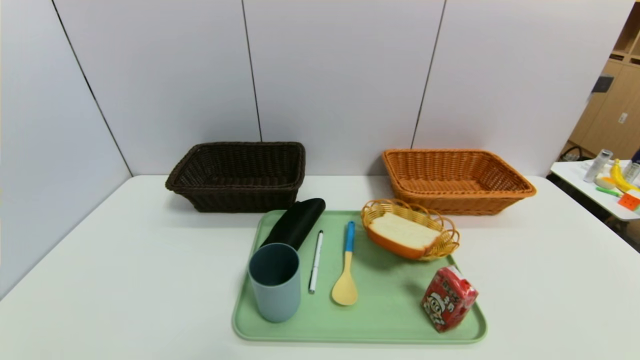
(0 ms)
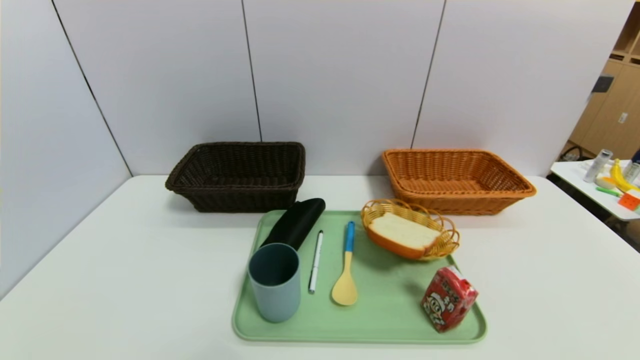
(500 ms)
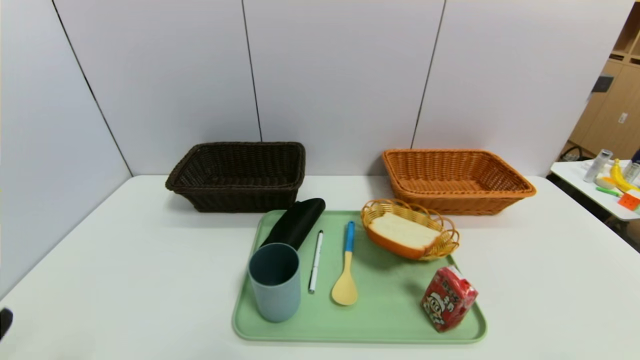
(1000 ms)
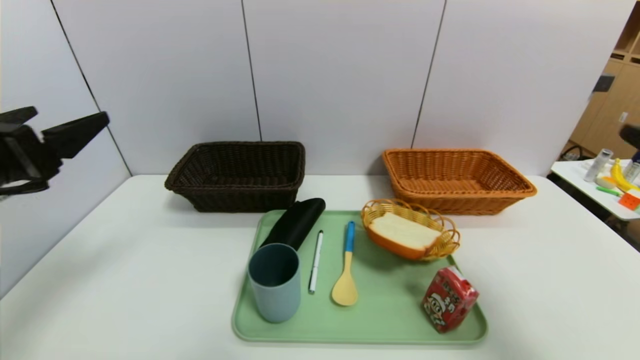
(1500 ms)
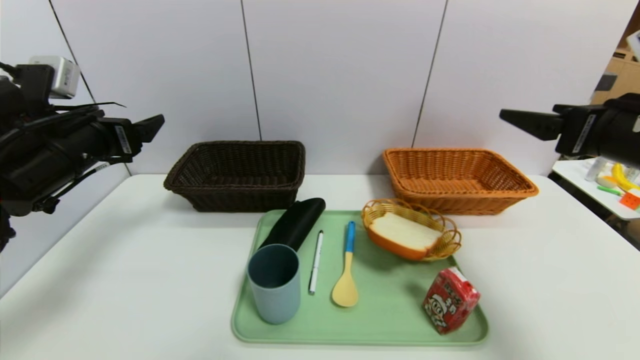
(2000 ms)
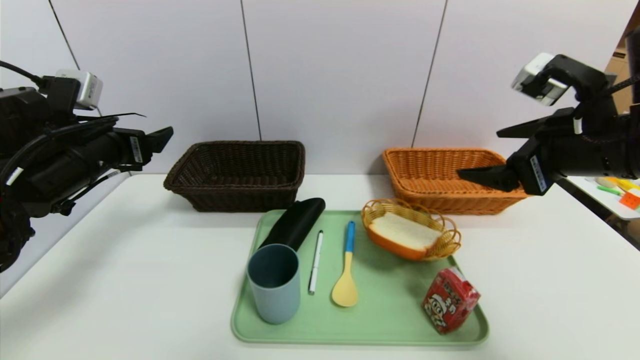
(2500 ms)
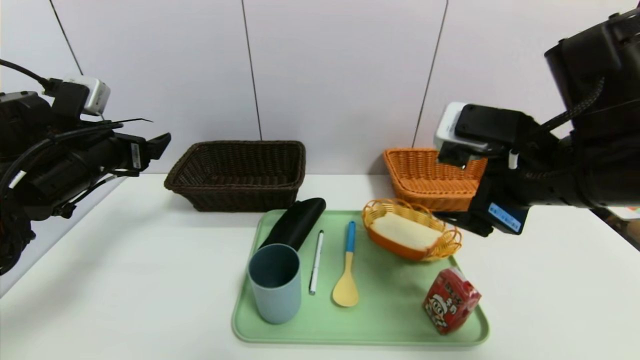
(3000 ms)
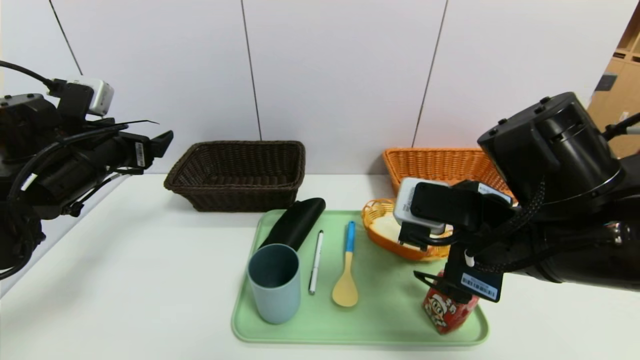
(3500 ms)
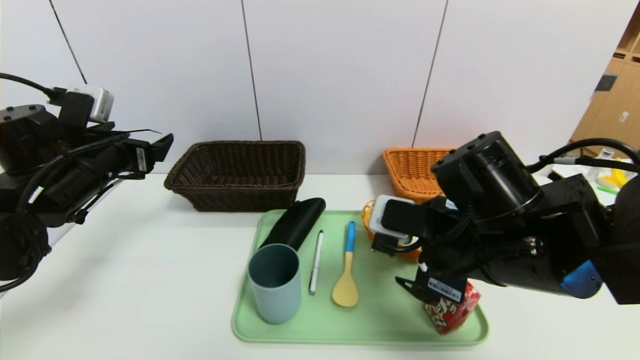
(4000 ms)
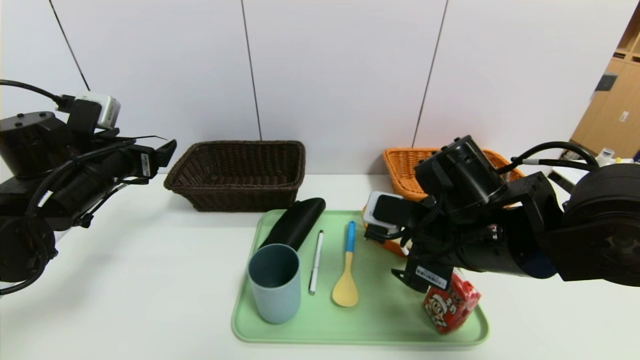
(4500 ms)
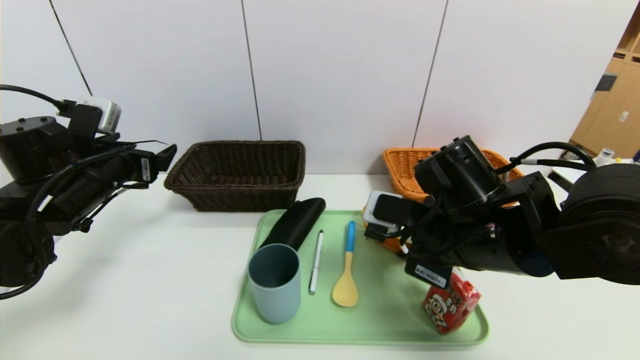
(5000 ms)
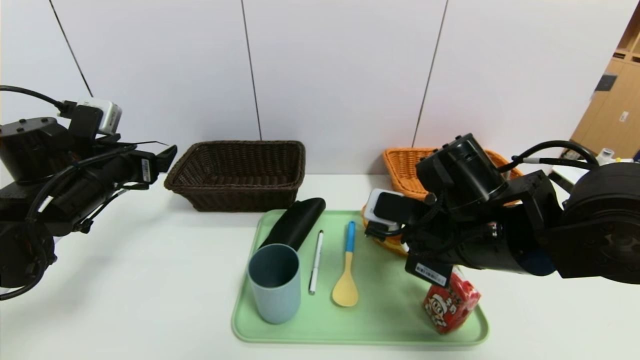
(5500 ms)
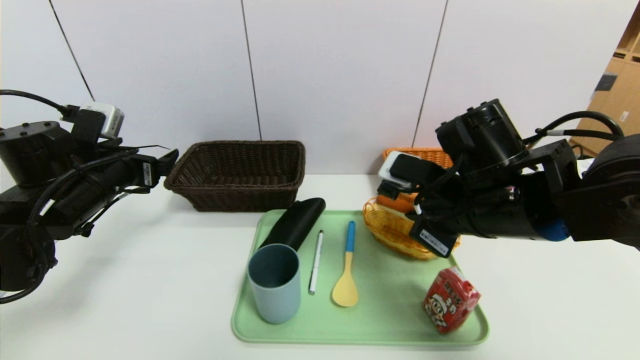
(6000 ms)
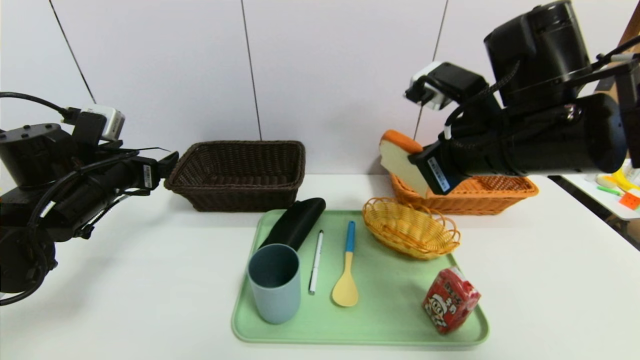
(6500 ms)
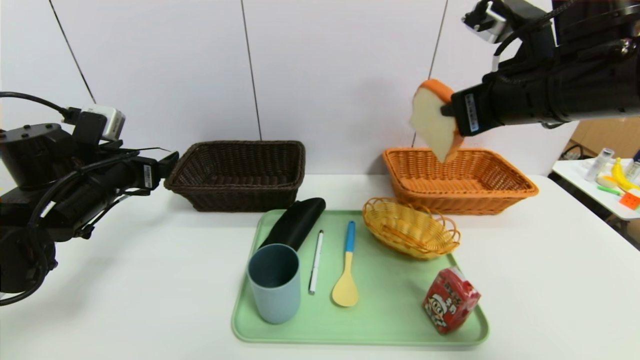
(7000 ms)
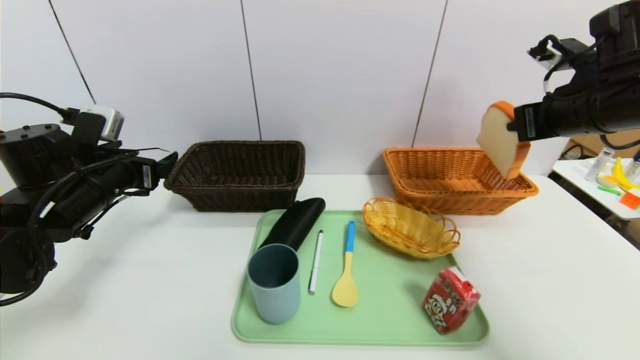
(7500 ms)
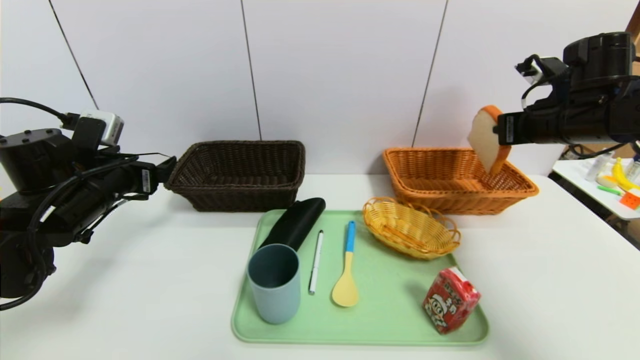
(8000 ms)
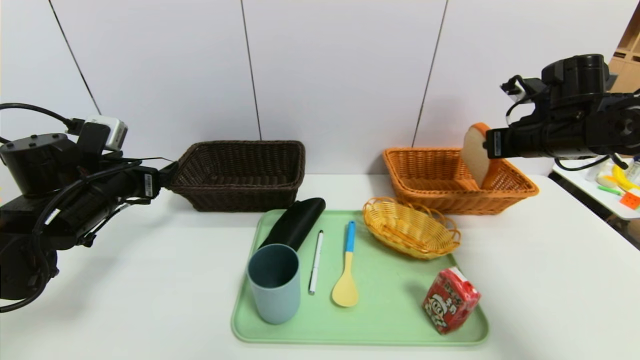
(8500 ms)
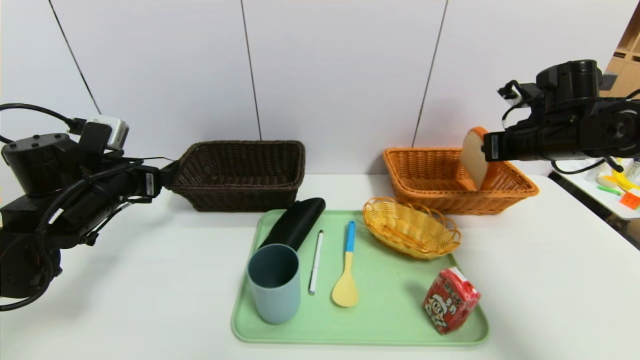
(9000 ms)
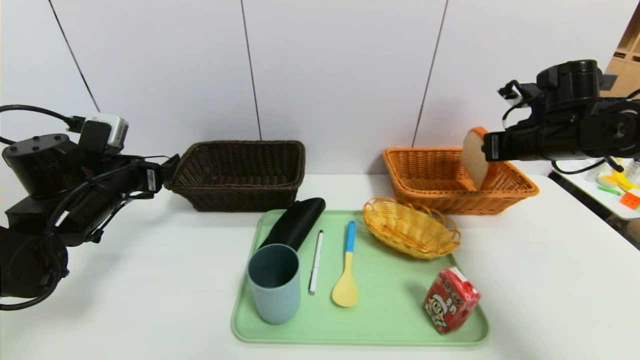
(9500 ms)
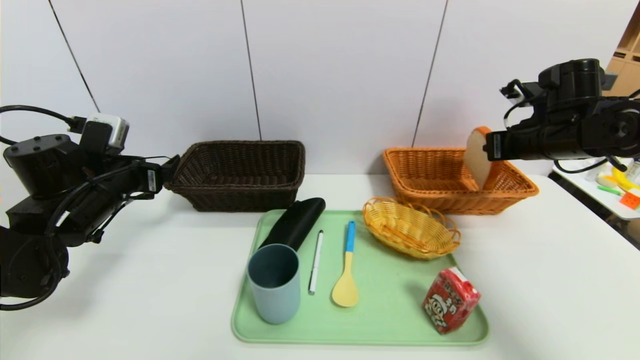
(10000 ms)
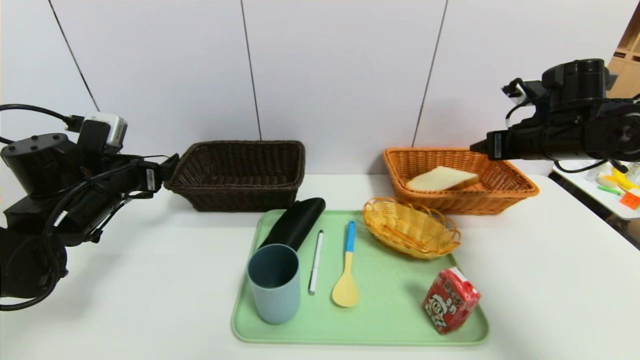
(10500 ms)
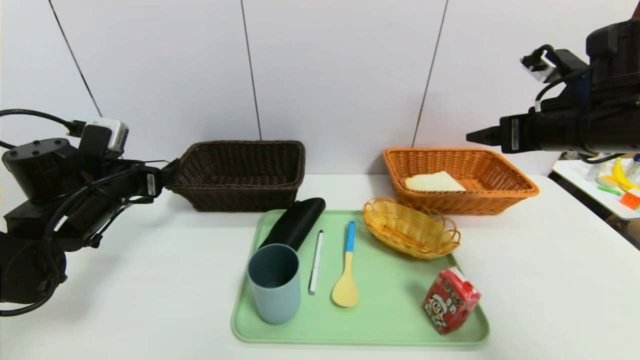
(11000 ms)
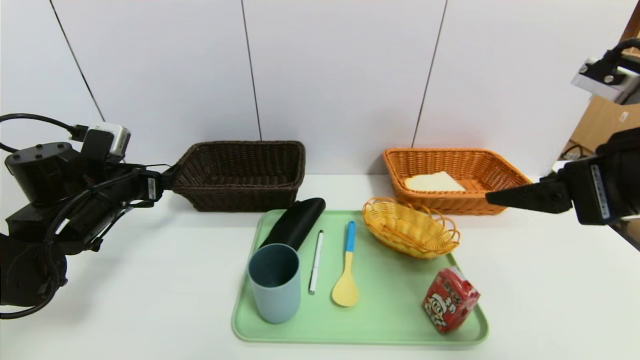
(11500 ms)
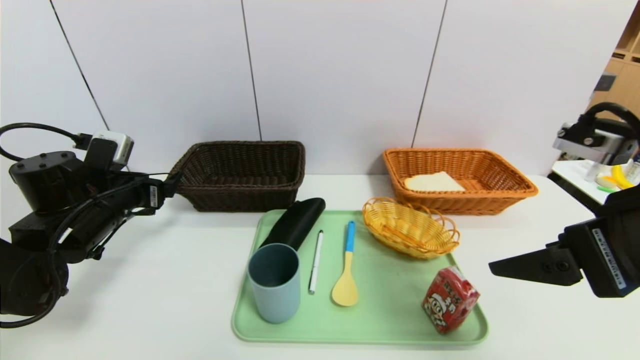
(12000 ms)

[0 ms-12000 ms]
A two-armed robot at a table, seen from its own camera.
Task of the whole recording: place the food in the right basket with the right gripper, and place the non food items in the left basket with the left gripper.
Step, 0 ms to 10500 ms: Grasp the bread slice and put it in the right basket.
0 ms to 2000 ms: Both grippers move forward and upward, about 35 cm.
2000 ms to 4000 ms: The right gripper heads to the left and downward, covering approximately 20 cm.
4000 ms to 6000 ms: The right gripper closes its fingers.
6000 ms to 8000 ms: The right gripper heads to the right and forward, covering roughly 20 cm.
8000 ms to 10000 ms: The grippers make only small movements.
10000 ms to 12000 ms: The right gripper is displaced backward by about 25 cm, and opens its fingers.

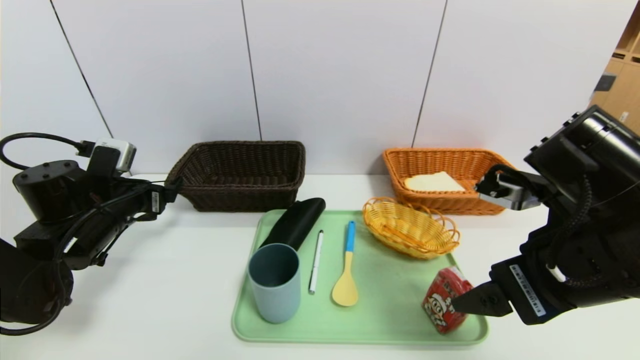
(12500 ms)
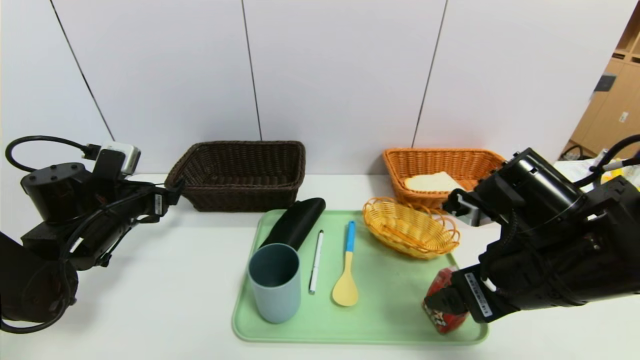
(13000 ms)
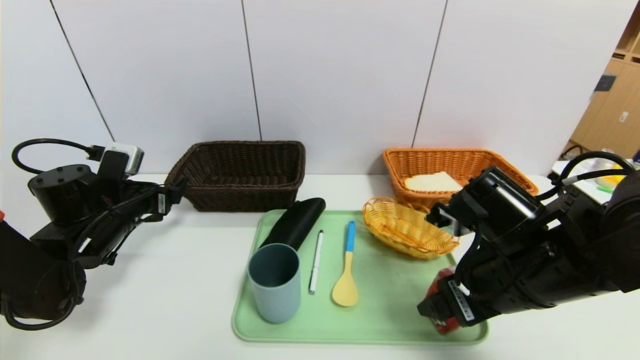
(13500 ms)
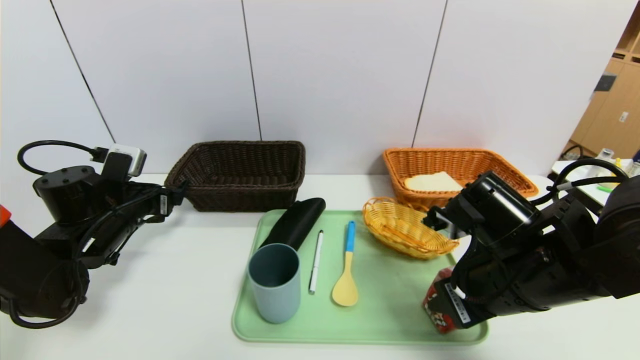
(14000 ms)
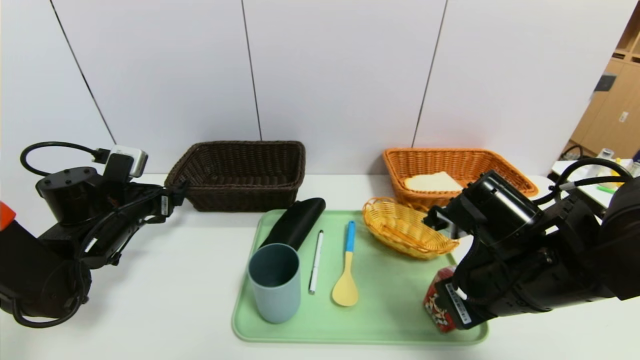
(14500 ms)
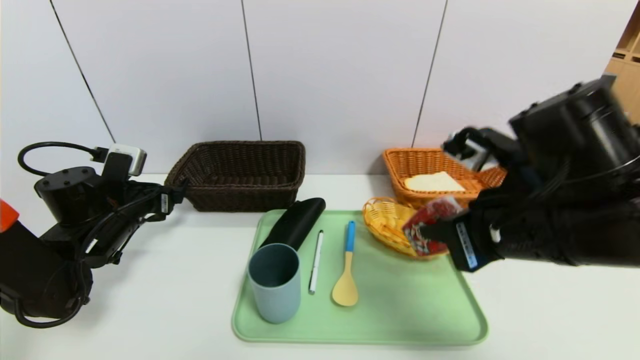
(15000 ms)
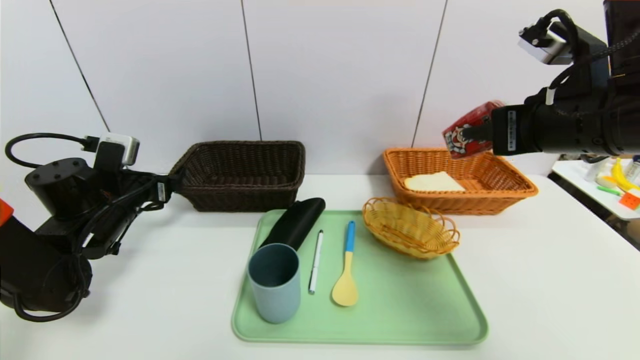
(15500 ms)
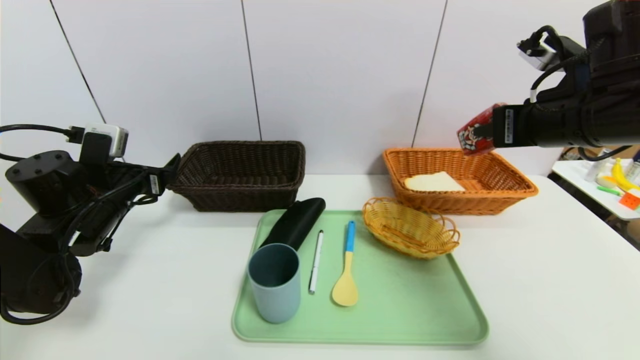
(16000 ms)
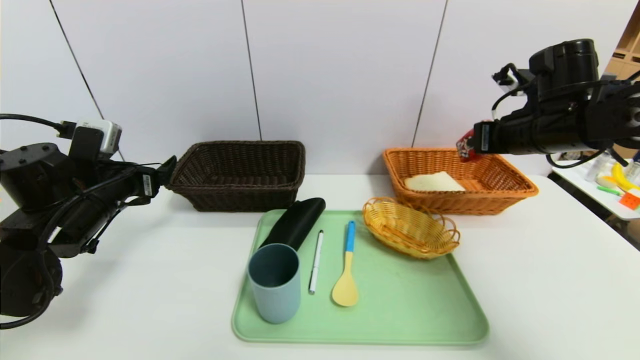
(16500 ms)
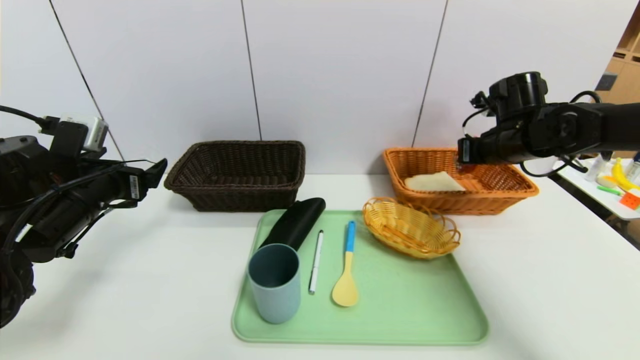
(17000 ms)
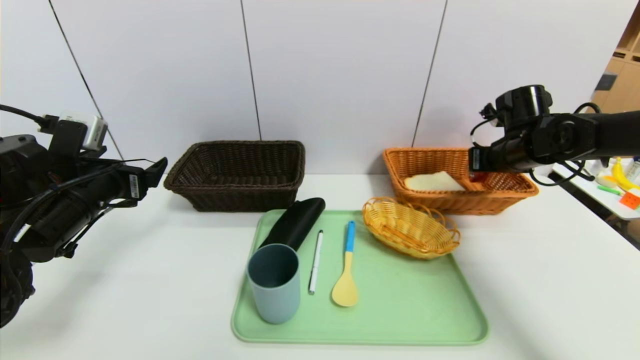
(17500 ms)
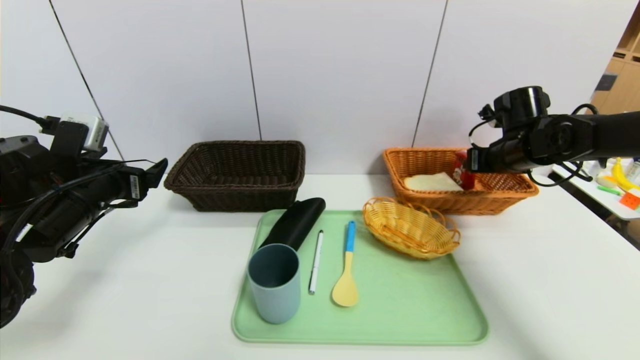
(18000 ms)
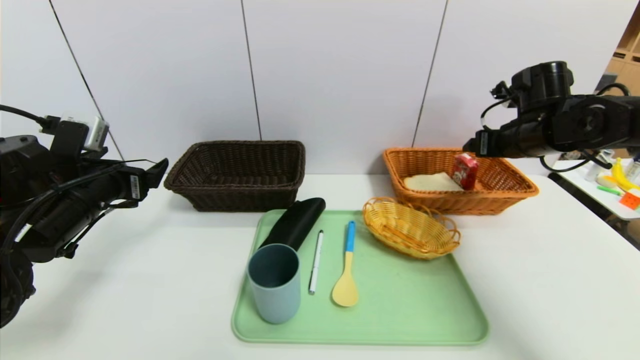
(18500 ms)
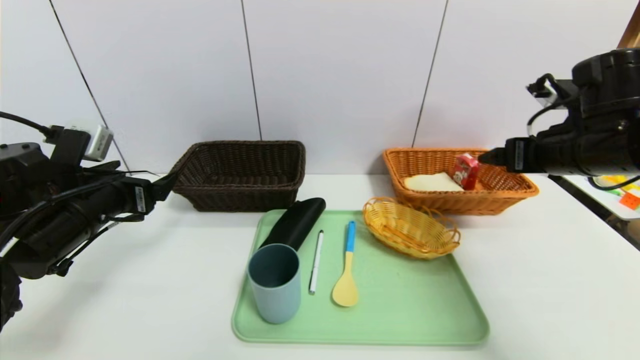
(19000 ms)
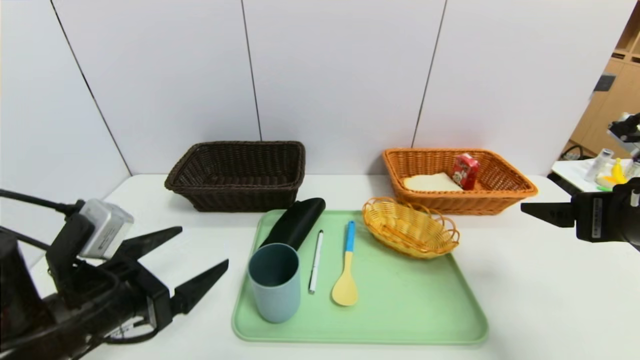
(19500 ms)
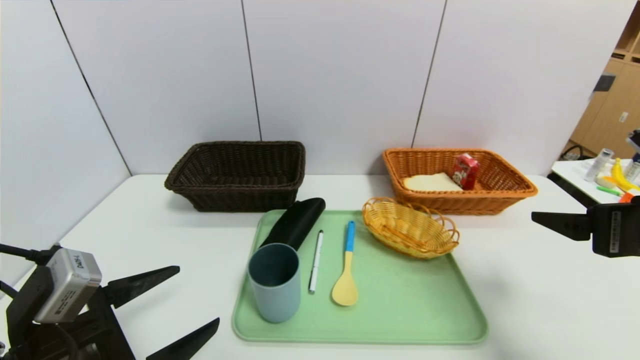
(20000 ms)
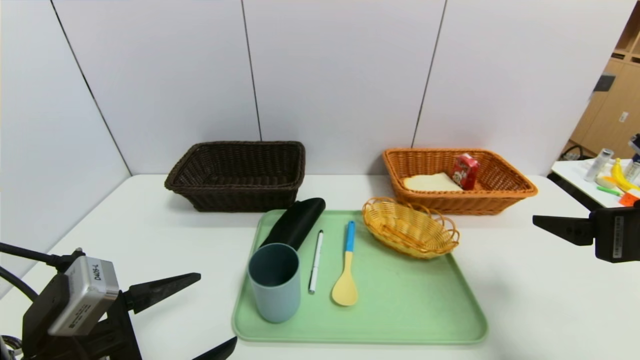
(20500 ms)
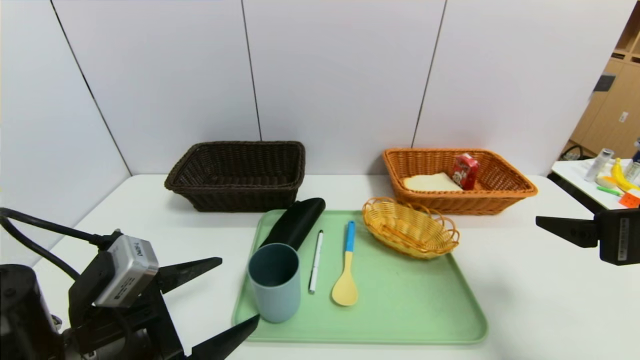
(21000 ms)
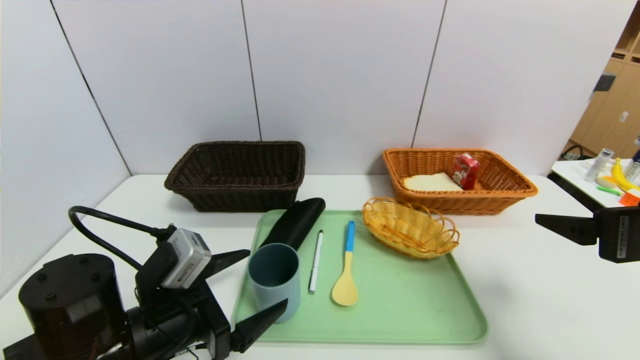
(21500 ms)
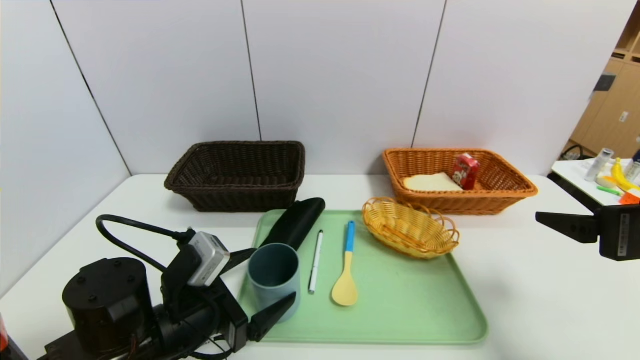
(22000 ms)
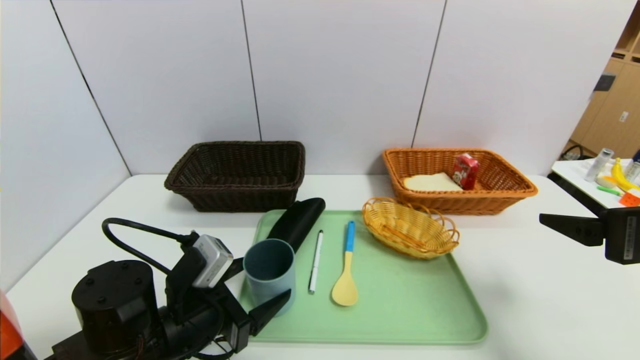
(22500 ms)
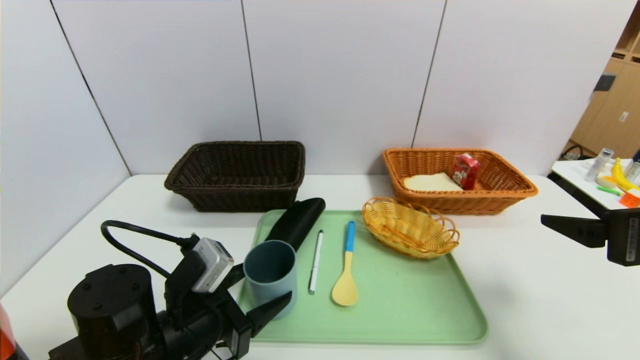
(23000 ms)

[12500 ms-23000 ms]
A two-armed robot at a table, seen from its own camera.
Task of the whole recording: place the food in the right basket with the right gripper, and place the non food items in the left basket with the left gripper.
Step, 12500 ms to 18000 ms: Grasp the ad milk and put it in the right basket.
12500 ms to 14500 ms: The right gripper travels downward by some 5 cm, and closes up.
14500 ms to 16500 ms: The left gripper shifts by roughly 5 cm, while the right gripper is displaced forward, to the right and upward by approximately 20 cm.
16500 ms to 19000 ms: The right gripper goes some 5 cm backward, and opens up.
19000 ms to 21000 ms: The left gripper moves backward and to the right, some 15 cm. Meanwhile the right gripper moves backward, approximately 15 cm.
21000 ms to 23000 ms: The left gripper changes place by about 5 cm, and closes up.
